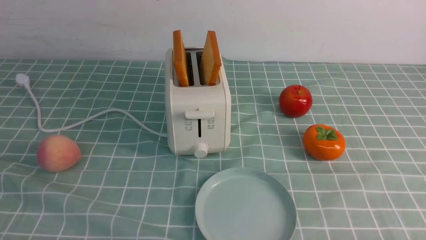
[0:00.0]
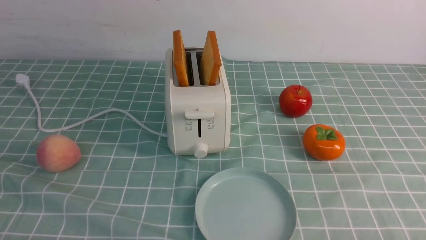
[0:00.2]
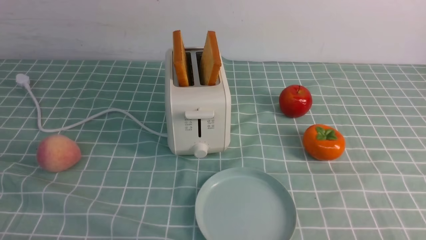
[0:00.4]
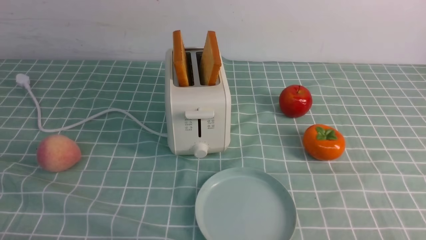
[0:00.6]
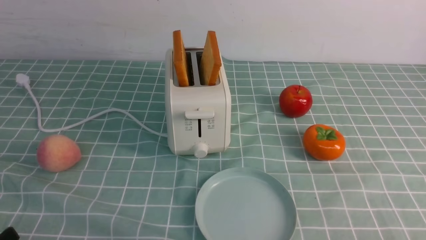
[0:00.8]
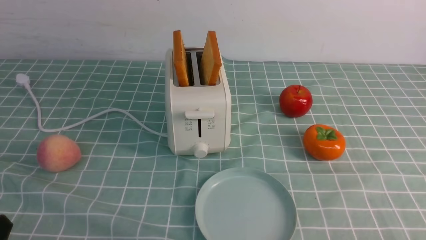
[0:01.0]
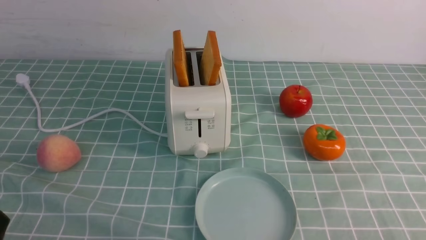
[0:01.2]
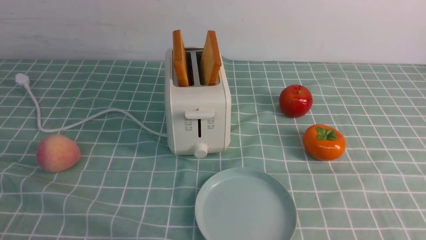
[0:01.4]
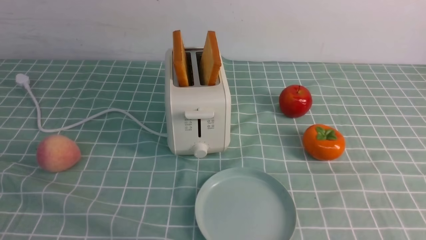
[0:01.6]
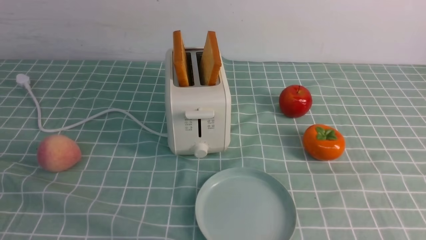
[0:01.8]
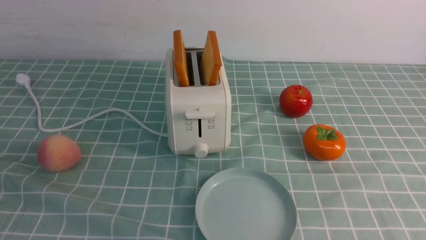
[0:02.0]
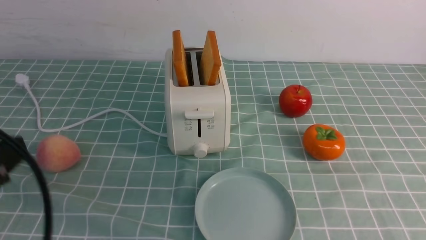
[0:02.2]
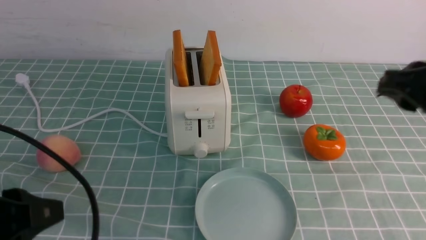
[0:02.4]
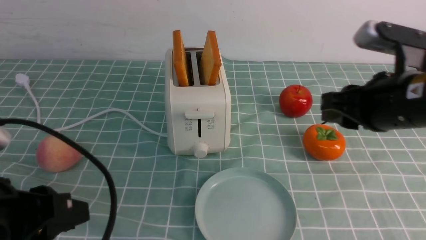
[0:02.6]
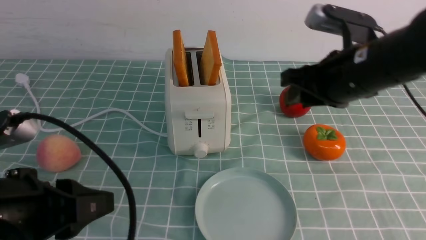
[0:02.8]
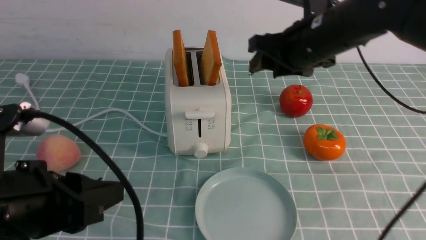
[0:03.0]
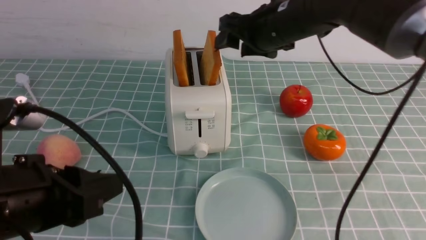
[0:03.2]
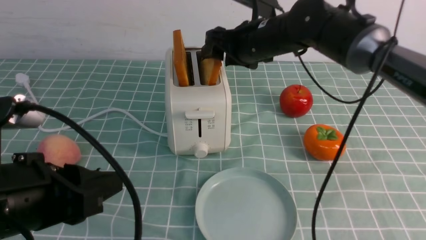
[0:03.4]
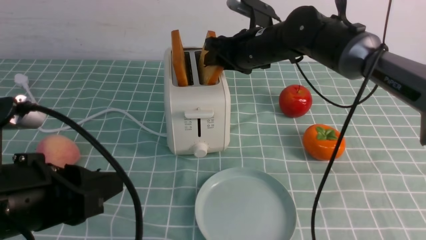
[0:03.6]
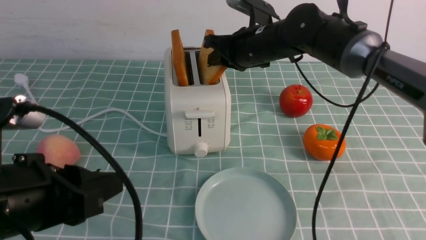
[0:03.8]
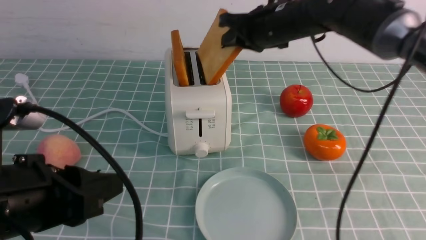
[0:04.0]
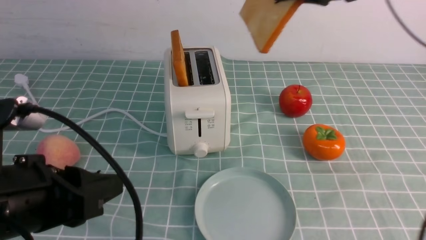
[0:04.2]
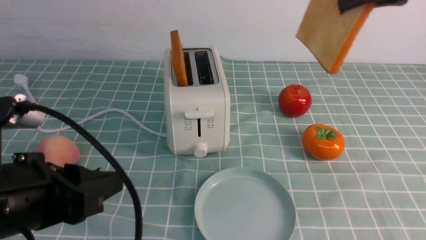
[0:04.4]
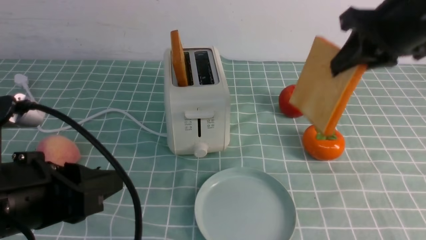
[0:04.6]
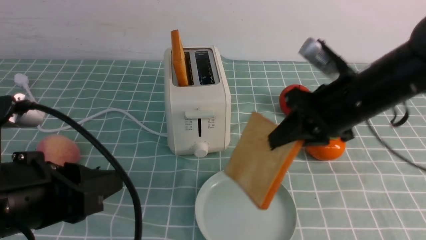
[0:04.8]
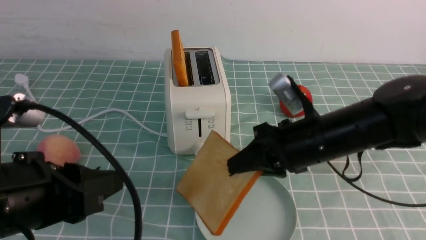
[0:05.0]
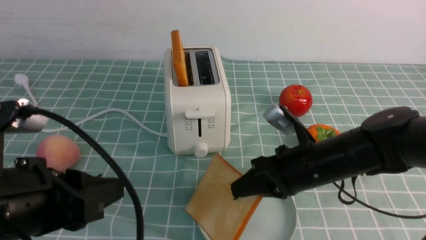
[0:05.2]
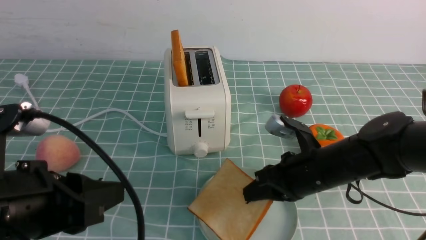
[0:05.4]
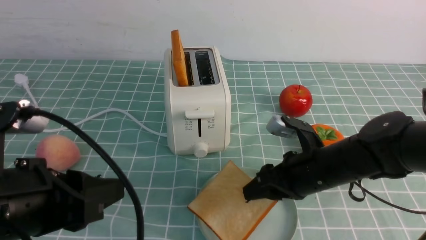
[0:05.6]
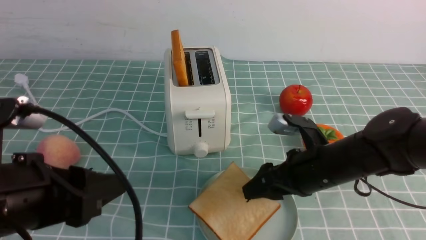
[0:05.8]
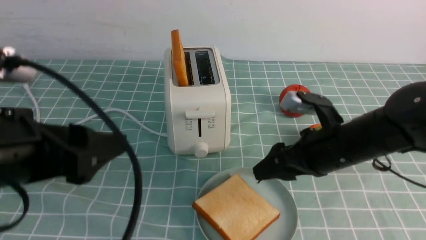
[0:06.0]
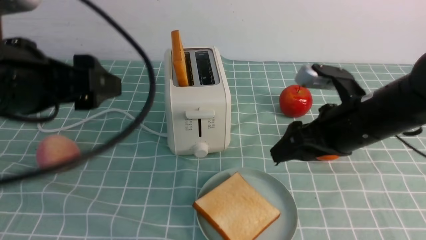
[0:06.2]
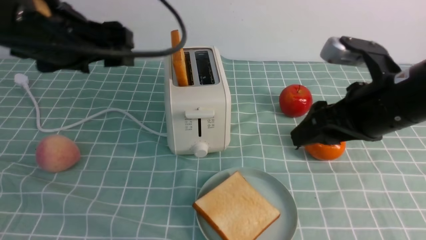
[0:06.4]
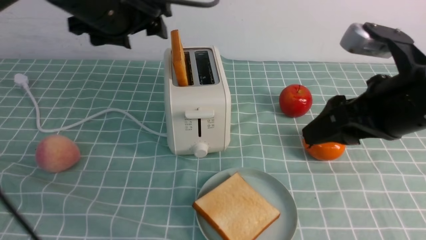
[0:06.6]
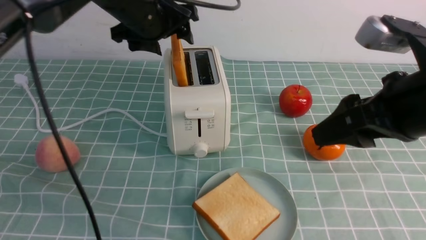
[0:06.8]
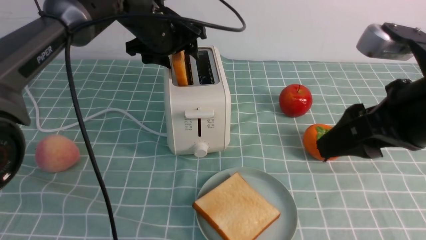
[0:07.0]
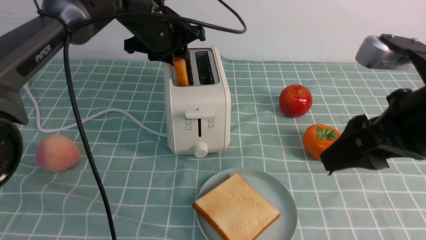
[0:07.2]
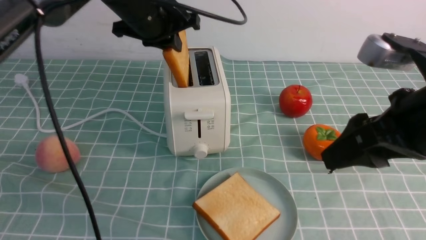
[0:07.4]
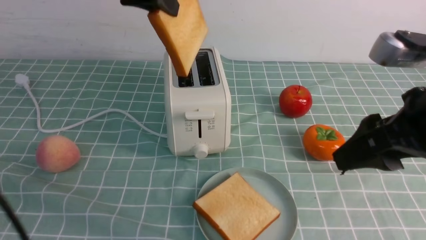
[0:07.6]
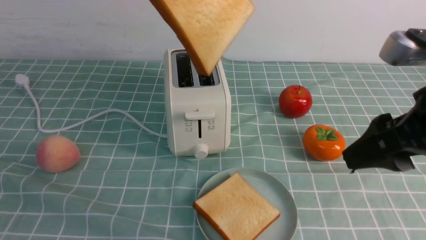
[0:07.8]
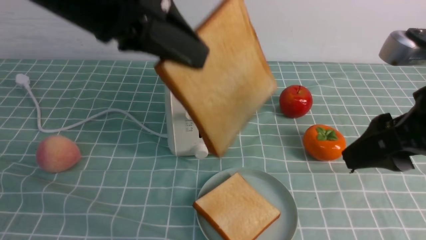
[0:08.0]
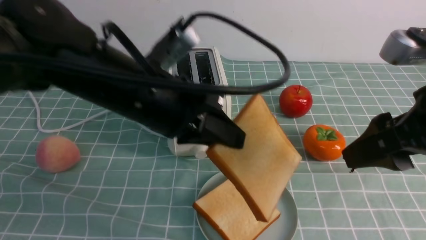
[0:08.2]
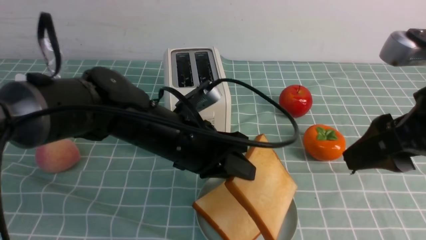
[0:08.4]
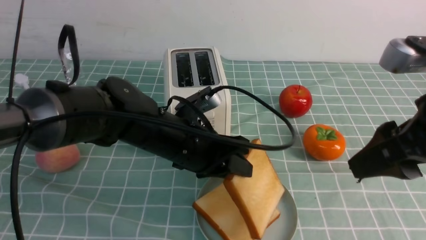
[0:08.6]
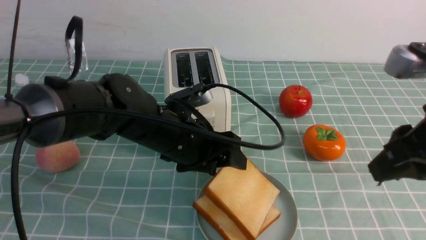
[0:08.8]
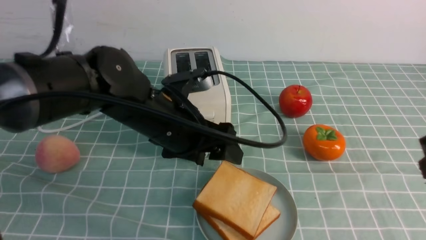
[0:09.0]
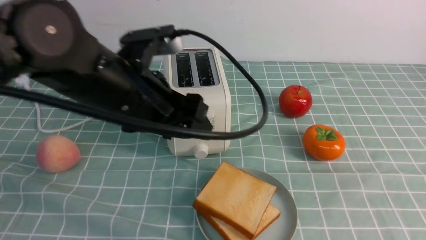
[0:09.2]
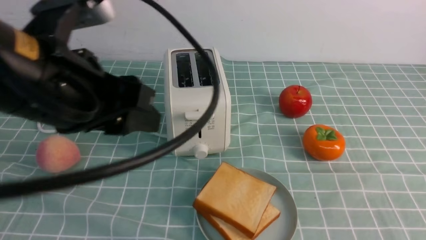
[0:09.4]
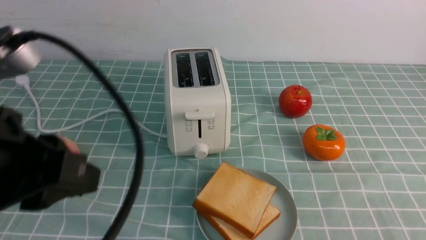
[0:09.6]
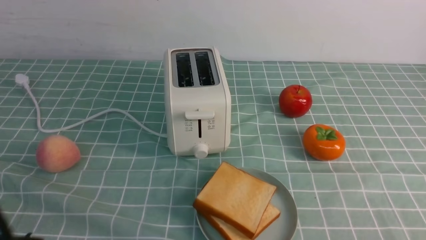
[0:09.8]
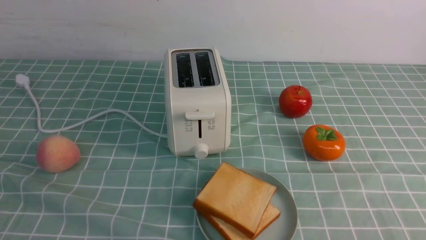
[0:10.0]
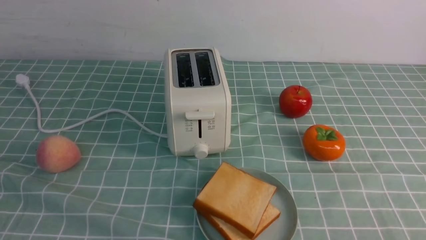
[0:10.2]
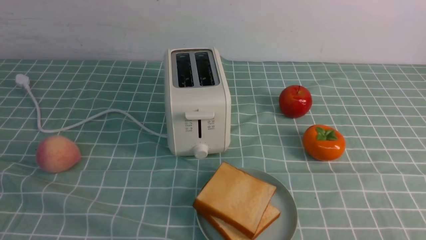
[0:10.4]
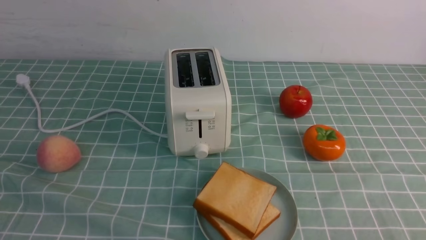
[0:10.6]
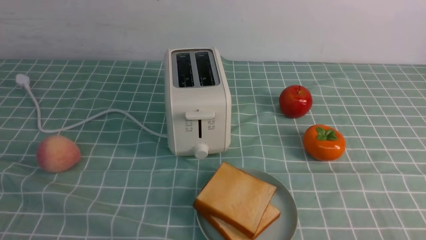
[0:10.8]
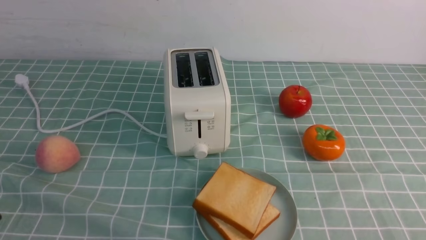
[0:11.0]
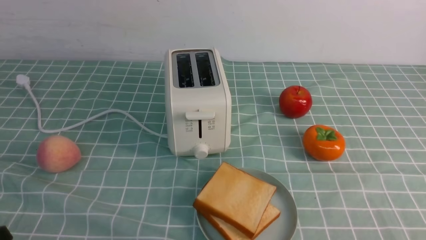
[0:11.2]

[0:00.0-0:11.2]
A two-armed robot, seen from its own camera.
Task of the whole recording: take toasted bread from bread machine on blue coffee table place on plate.
Step, 0:00.0 to 0:04.2: use the right arm to take out a slice of bread.
Step, 0:04.4 to 0:06.0: use the right arm to put a slice of bread into the plate.
Step, 0:06.2 to 0:07.6: use the left arm to take out a slice of bread.
Step, 0:07.8 to 0:09.0: use the left arm to put a slice of bread into the empty plate.
0:01.6 to 0:03.2: The right gripper goes some 40 cm forward and to the left, and opens its fingers. Meanwhile the left gripper shifts about 15 cm forward and to the right.
0:03.2 to 0:04.8: The right gripper travels backward and to the right by approximately 10 cm, and closes its fingers.
0:04.8 to 0:06.4: The left gripper shifts roughly 15 cm forward and upward, and opens up. Meanwhile the right gripper goes approximately 5 cm backward, moves about 15 cm downward and comes back, and opens its fingers.
0:06.4 to 0:08.0: The right gripper shifts about 10 cm backward and upward. Meanwhile the left gripper goes some 10 cm upward and to the right, moves roughly 20 cm forward and comes back, and closes.
0:08.0 to 0:09.6: The right gripper shifts some 20 cm backward, downward and to the right, and closes up. The left gripper is displaced backward and to the left by about 15 cm, goes downward and returns, about 20 cm each way, and opens and closes again.
0:09.6 to 0:11.2: The left gripper shifts roughly 20 cm downward, backward and to the left, and closes.
